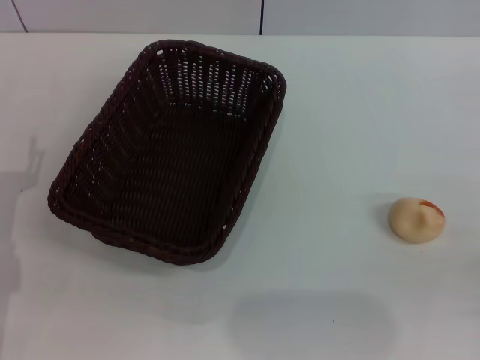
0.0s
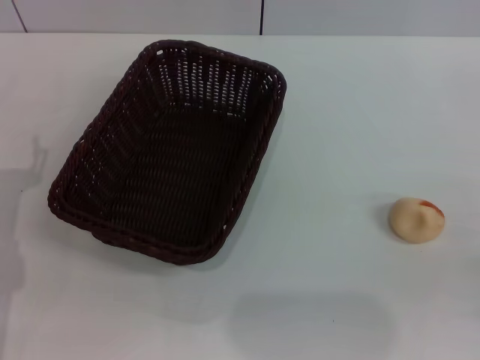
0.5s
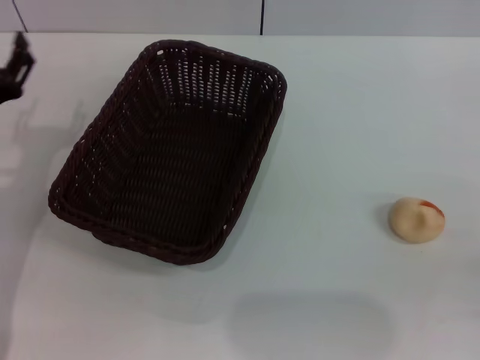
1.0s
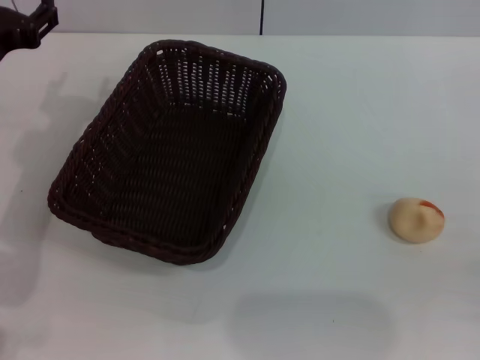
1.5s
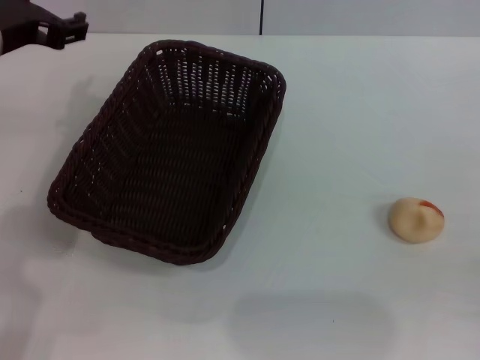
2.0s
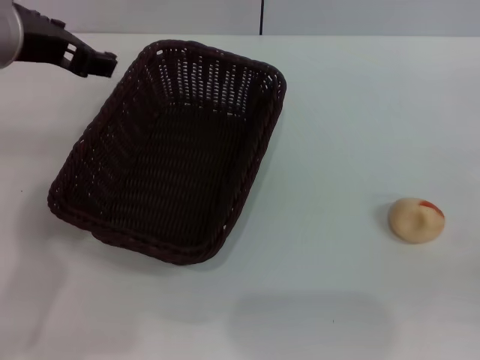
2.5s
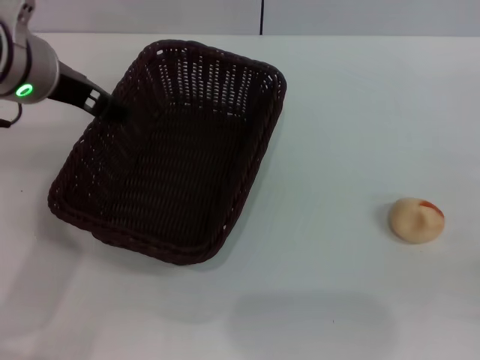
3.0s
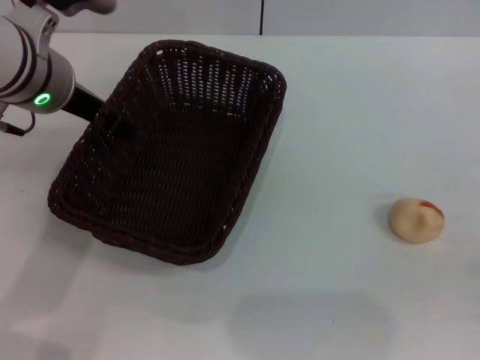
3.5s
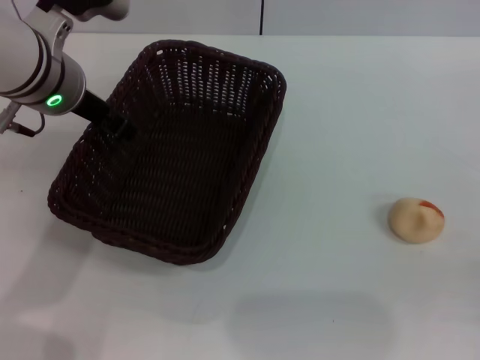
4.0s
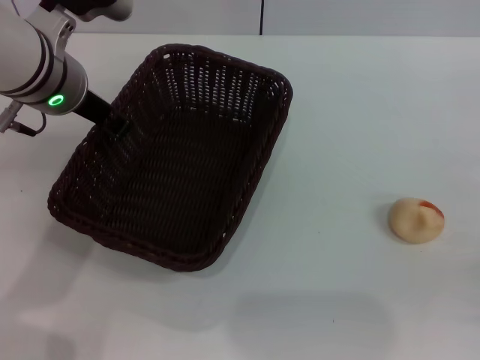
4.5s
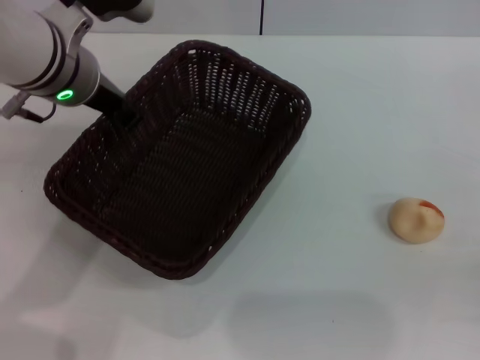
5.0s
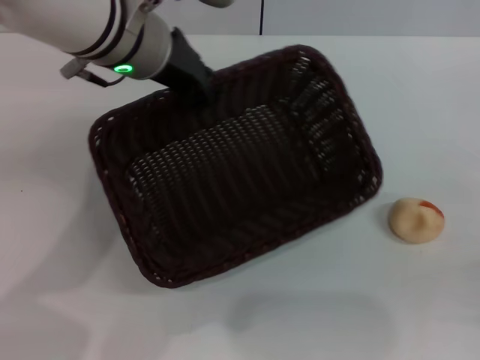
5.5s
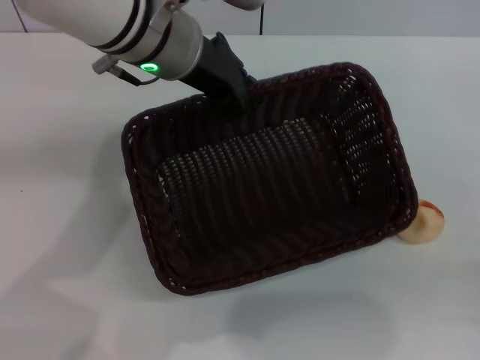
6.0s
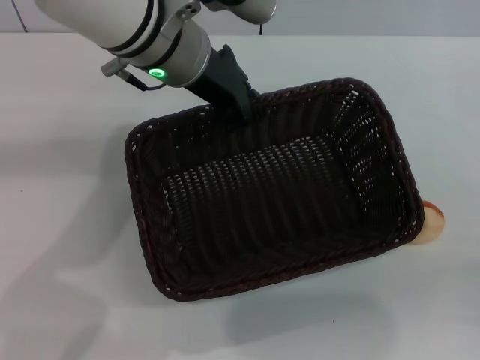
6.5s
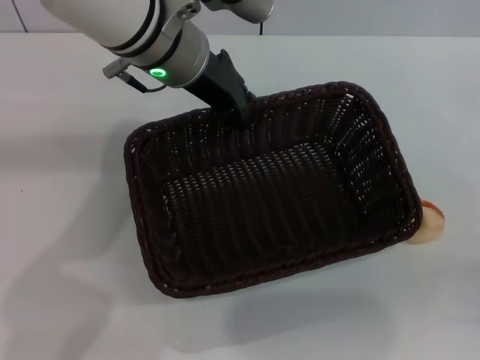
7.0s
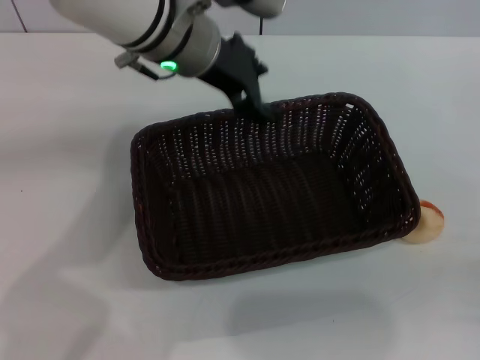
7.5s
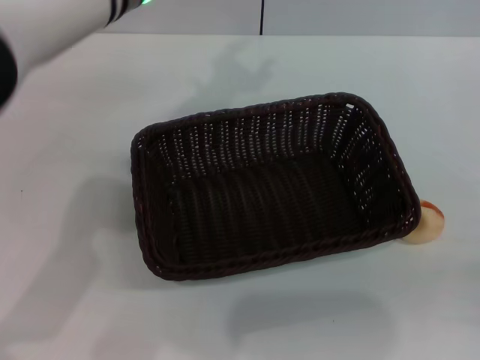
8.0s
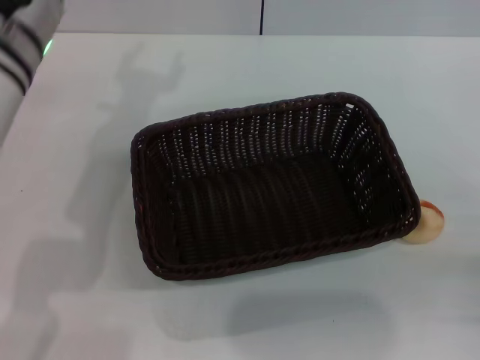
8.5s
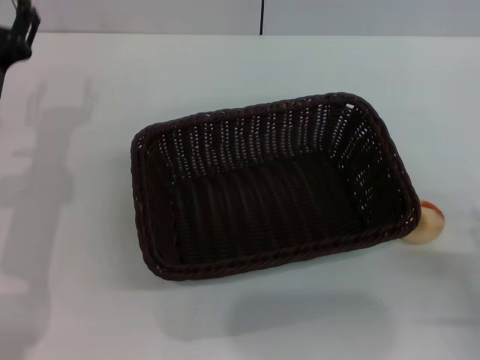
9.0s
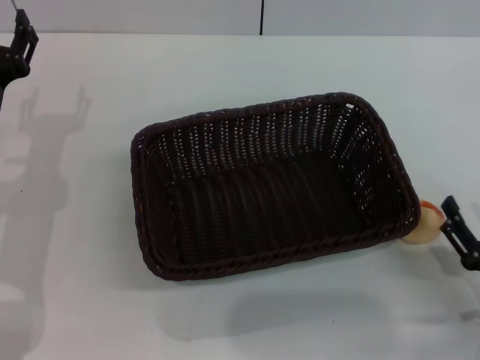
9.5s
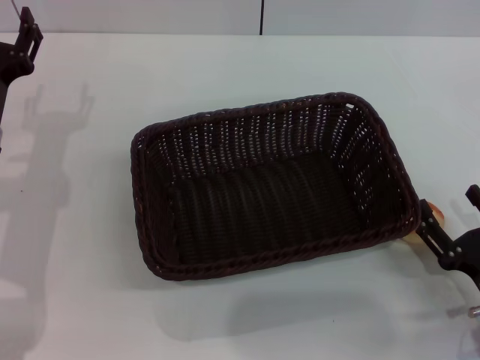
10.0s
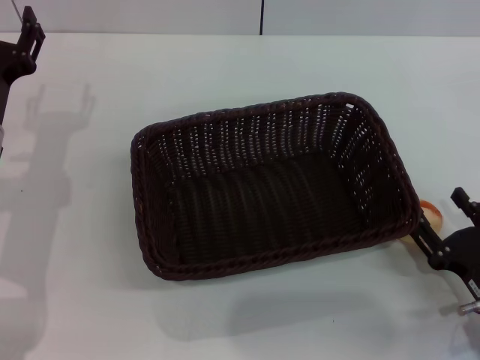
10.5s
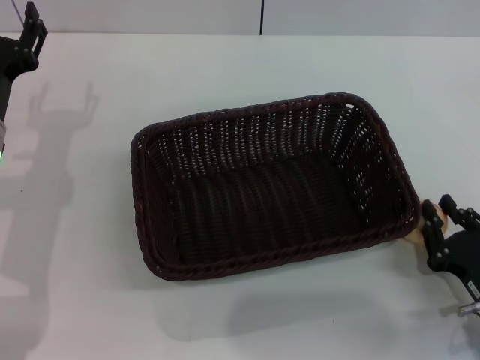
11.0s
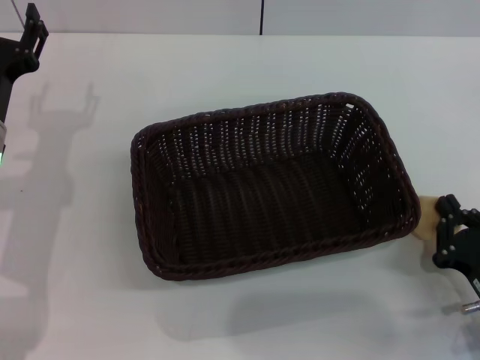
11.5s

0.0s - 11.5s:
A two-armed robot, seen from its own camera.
Step, 0.0s - 7.5s: Move the basket to the center of view with the left gripper.
0.0s - 2.0s: The left gripper travels upward and forward by about 20 cm.
2.0s - 4.0s: The left gripper heads to the right, covering about 5 cm.
4.0s - 6.0s: The left gripper goes approximately 10 cm to the right, and closes.
6.0s - 7.5s: The left gripper opens.
7.5s - 9.5s: The left gripper goes roughly 25 cm to the left, downward and backward, and opens, while the right gripper shifts some 5 cm to the left.
9.5s - 11.5s: The right gripper closes up.

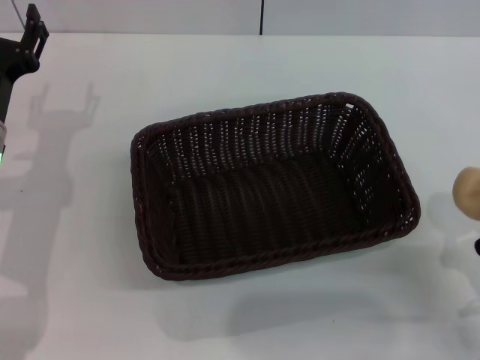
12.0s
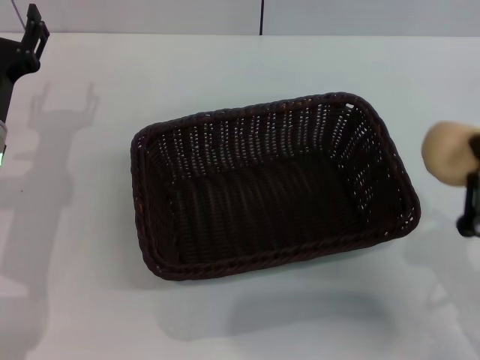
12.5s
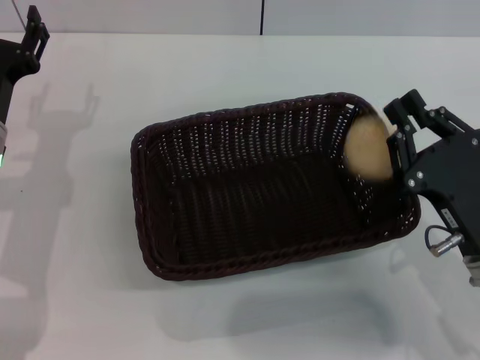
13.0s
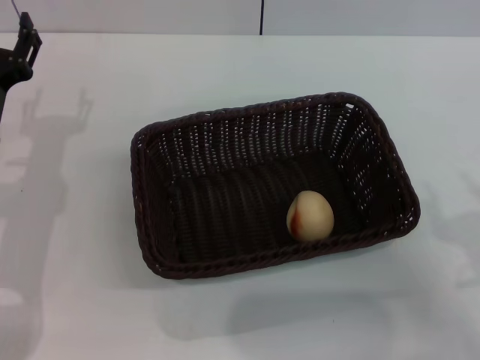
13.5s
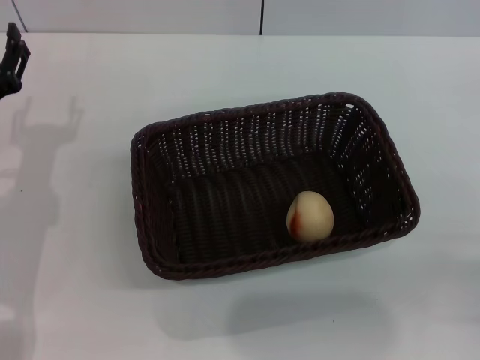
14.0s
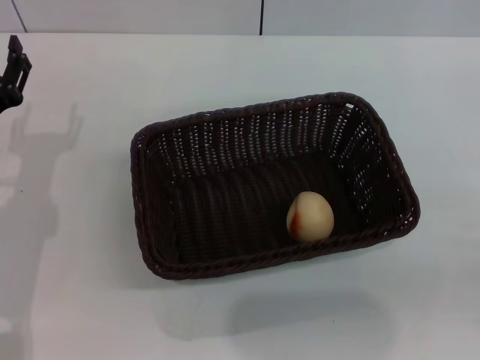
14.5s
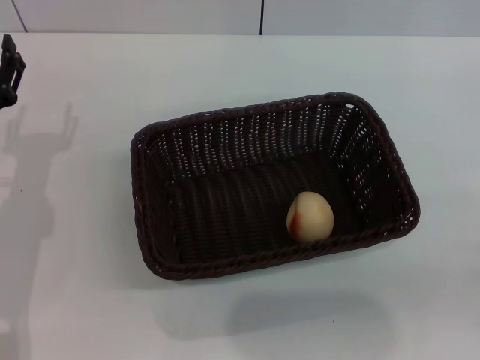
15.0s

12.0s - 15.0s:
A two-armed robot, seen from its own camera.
Step, 12.0s - 13.0s: Place the egg yolk pastry into the basket with the right gripper.
12.0s - 13.5s: The right gripper opens.

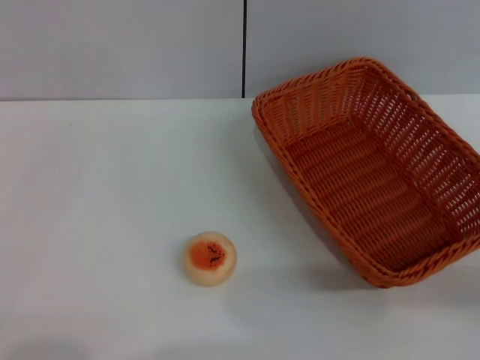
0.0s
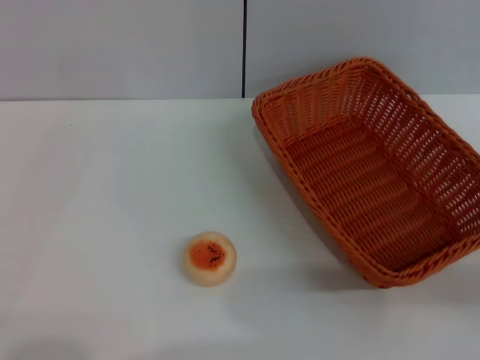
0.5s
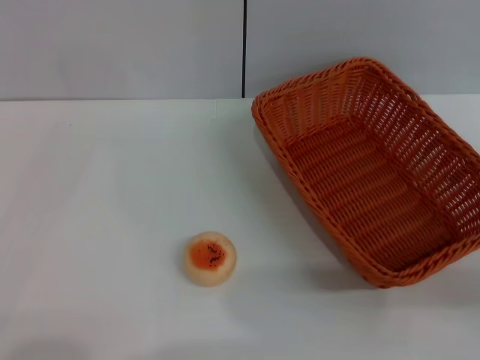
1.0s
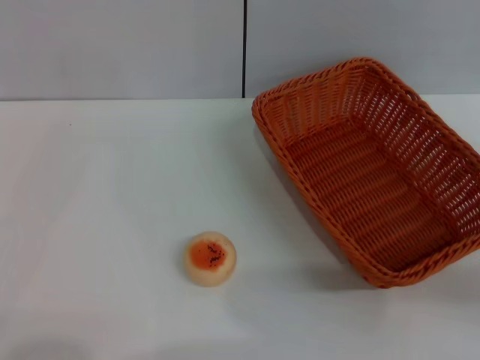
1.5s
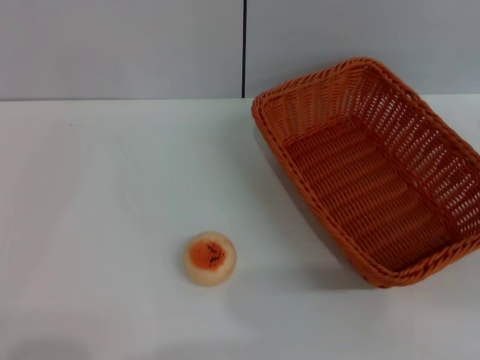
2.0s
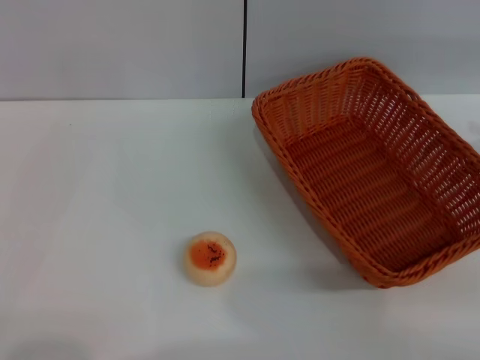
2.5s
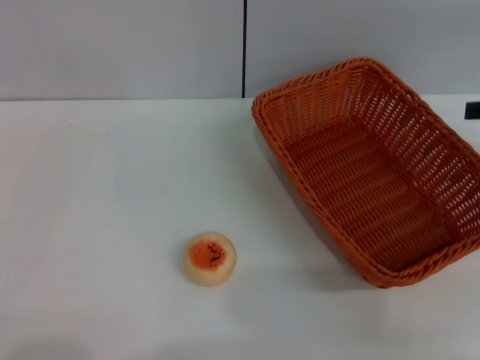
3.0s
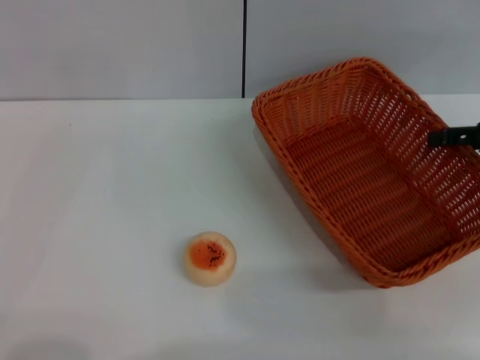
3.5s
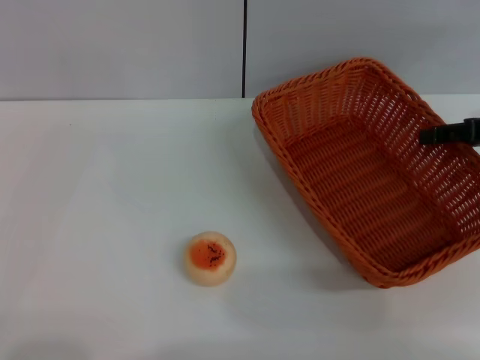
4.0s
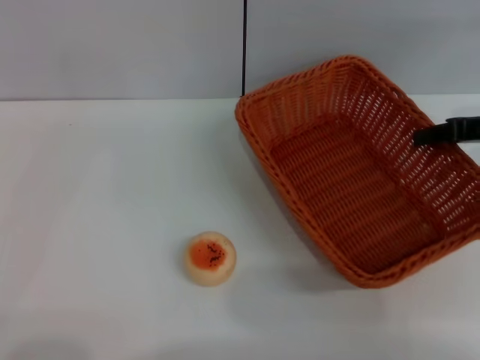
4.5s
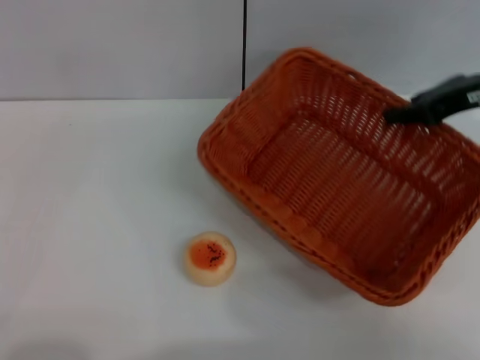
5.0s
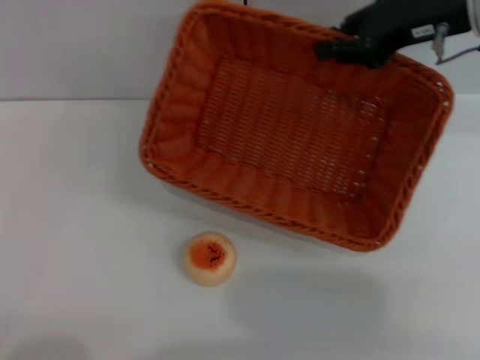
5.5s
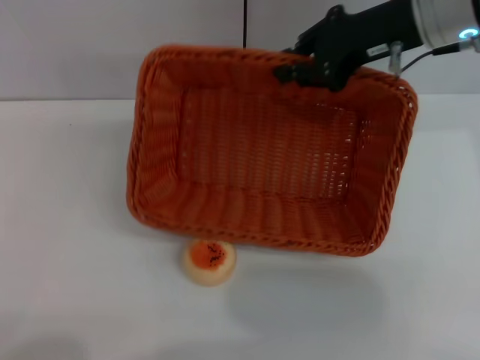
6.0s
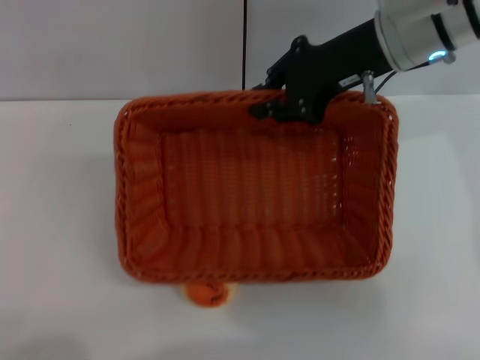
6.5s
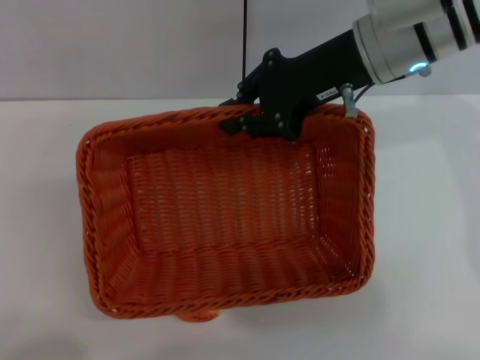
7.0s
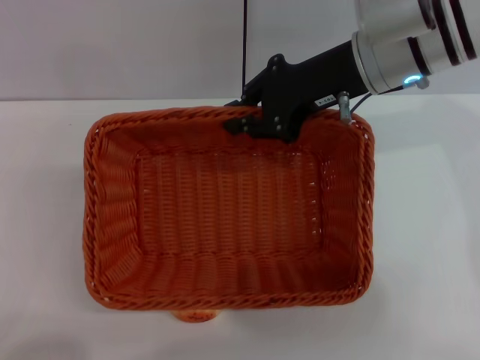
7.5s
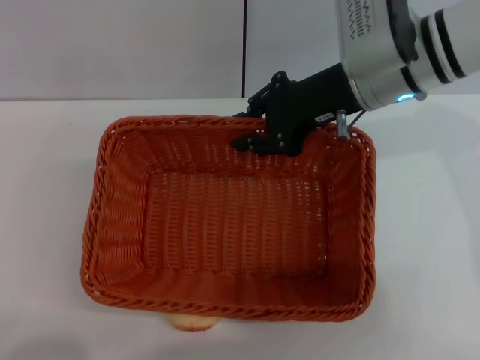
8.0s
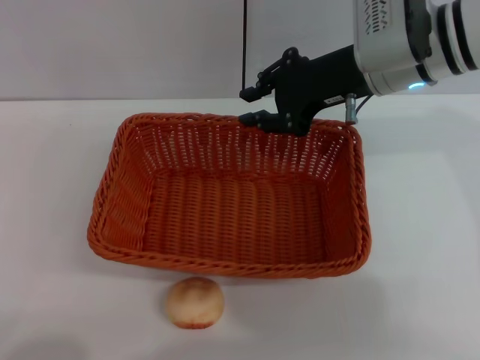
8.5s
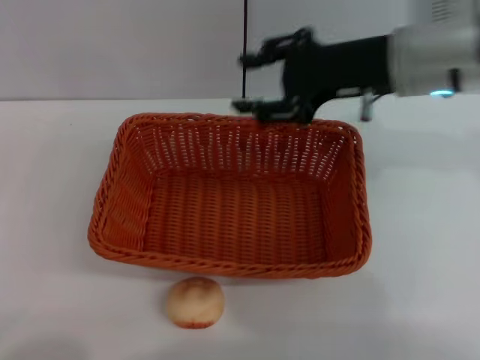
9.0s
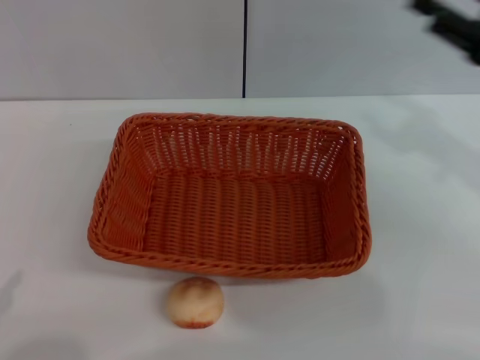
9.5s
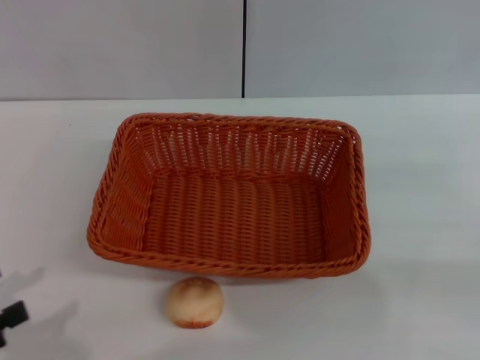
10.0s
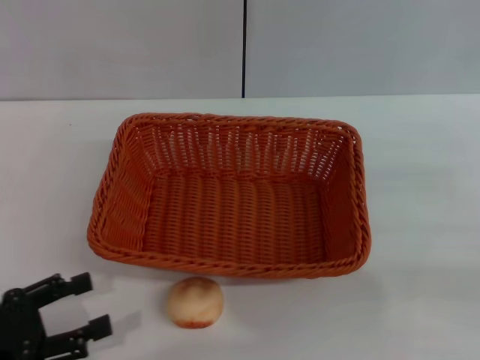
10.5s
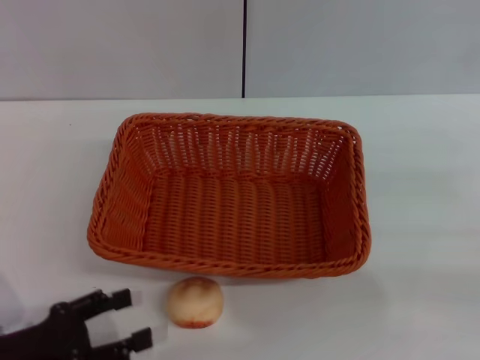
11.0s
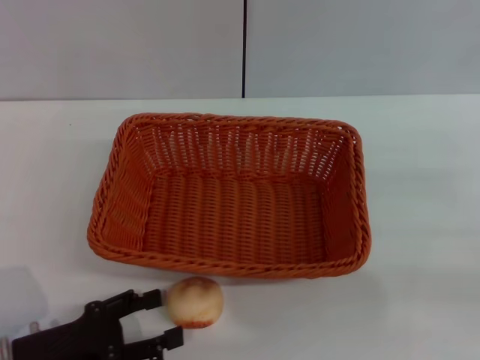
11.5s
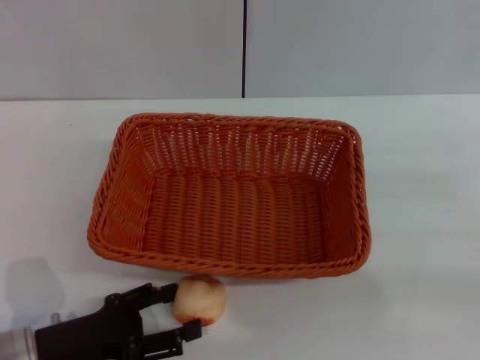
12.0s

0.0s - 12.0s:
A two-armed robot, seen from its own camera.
Step, 0.0s - 9.0s: Move the basket to the center of view with the right gripper.
2.0s - 4.0s: The right gripper is displaced forward and to the left by roughly 10 cm.
4.0s - 6.0s: The left gripper shifts some 10 cm backward. Meanwhile the right gripper goes about 20 cm to the left, upward and forward, and closes its fingers.
6.0s - 8.0s: The right gripper moves some 5 cm.
8.0s - 10.0s: The left gripper is displaced forward by approximately 5 cm. Meanwhile the right gripper heads to the right and backward, covering some 30 cm, and opens its fingers.
10.0s - 12.0s: The left gripper is displaced to the right, downward and forward by approximately 15 cm.
